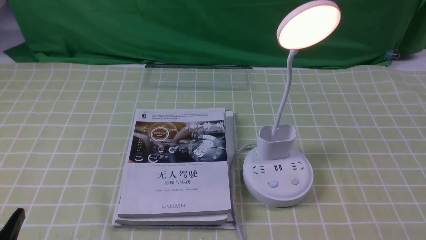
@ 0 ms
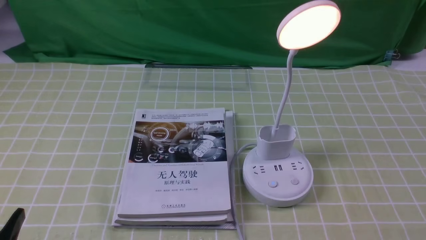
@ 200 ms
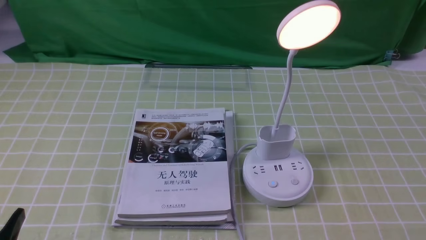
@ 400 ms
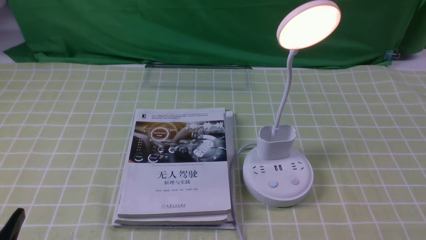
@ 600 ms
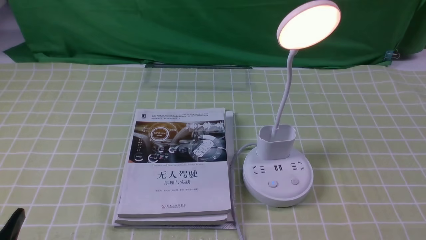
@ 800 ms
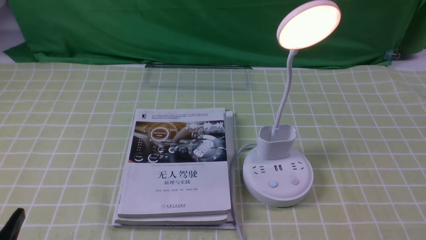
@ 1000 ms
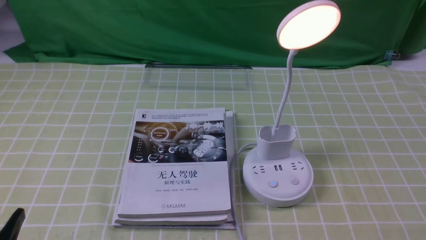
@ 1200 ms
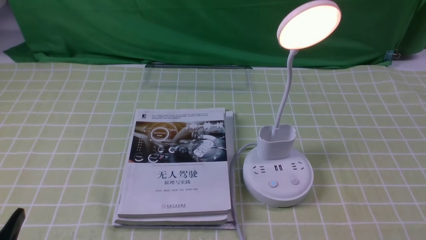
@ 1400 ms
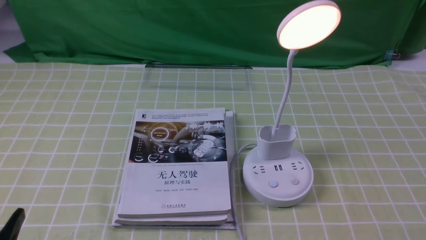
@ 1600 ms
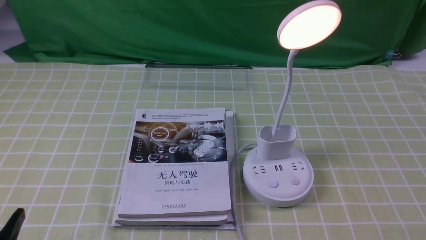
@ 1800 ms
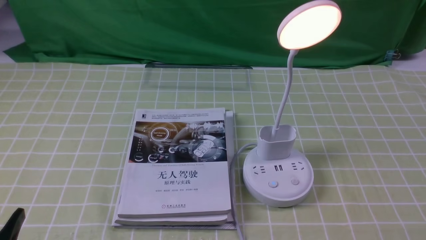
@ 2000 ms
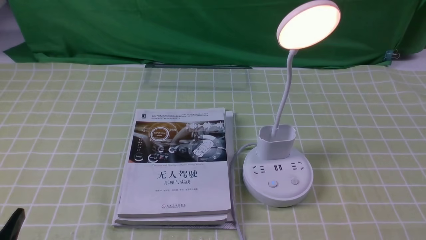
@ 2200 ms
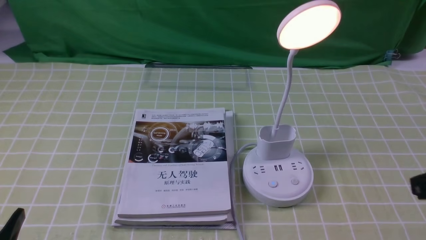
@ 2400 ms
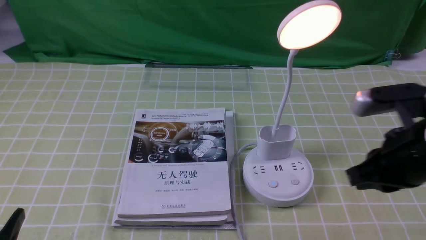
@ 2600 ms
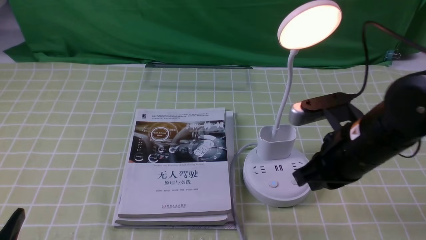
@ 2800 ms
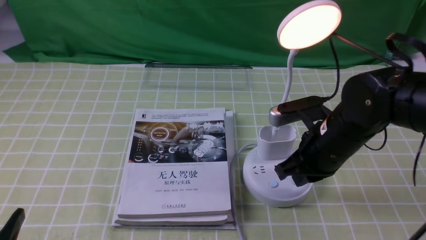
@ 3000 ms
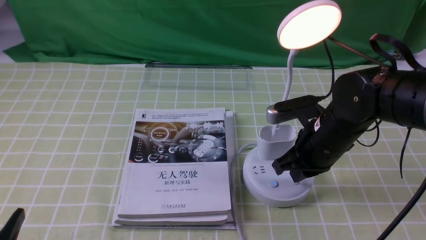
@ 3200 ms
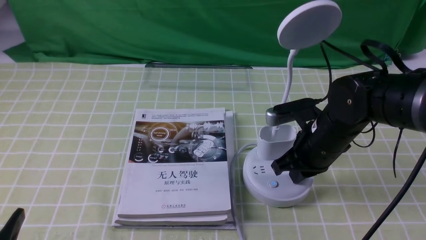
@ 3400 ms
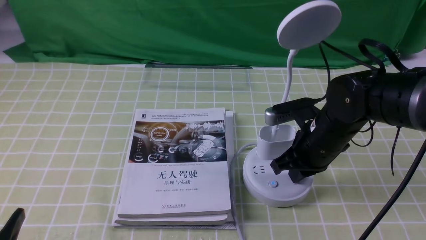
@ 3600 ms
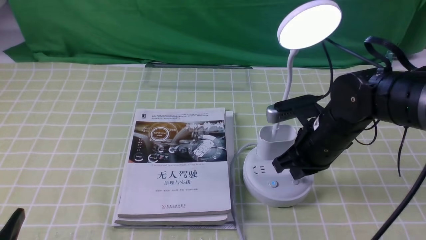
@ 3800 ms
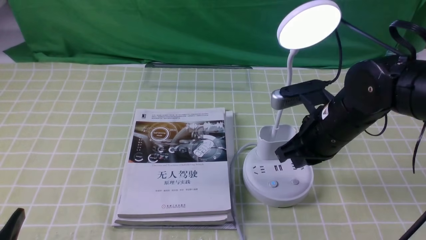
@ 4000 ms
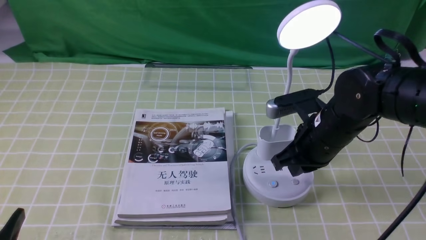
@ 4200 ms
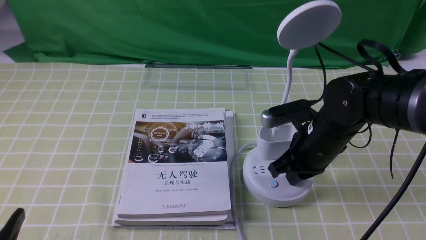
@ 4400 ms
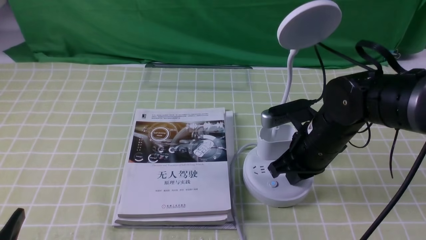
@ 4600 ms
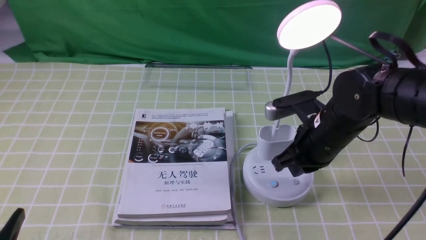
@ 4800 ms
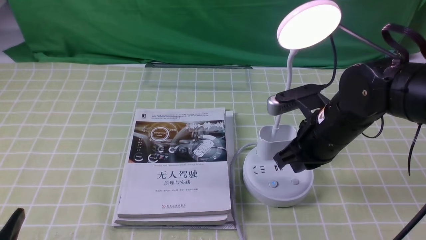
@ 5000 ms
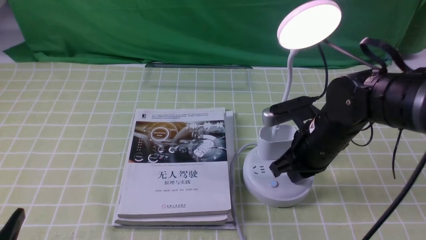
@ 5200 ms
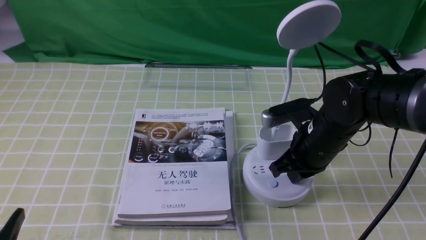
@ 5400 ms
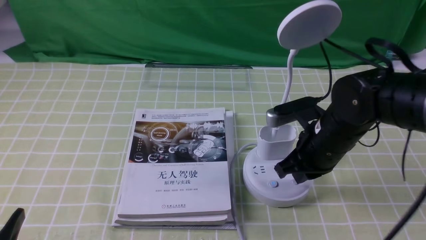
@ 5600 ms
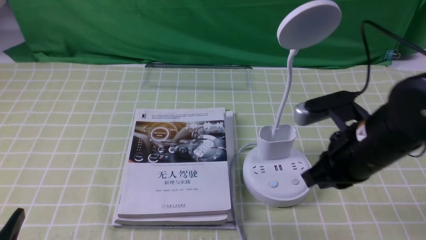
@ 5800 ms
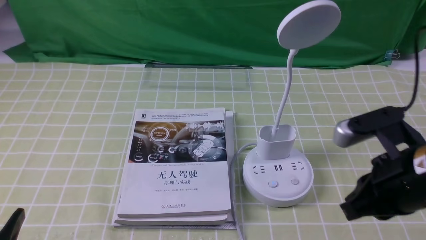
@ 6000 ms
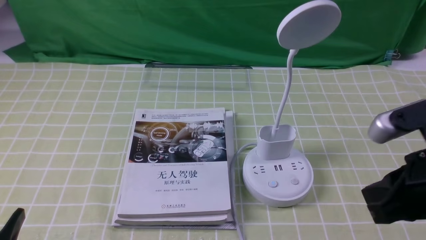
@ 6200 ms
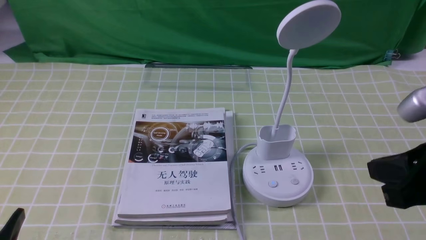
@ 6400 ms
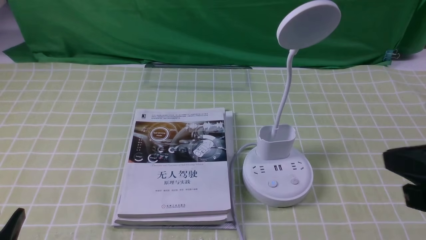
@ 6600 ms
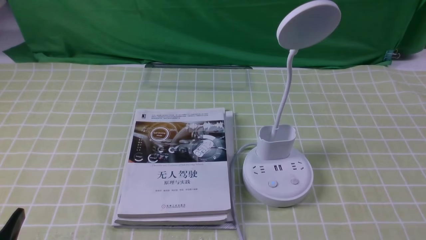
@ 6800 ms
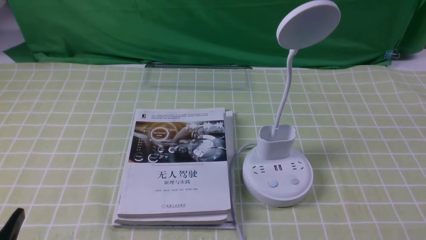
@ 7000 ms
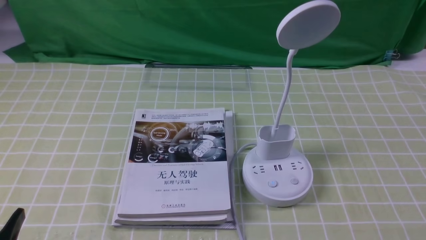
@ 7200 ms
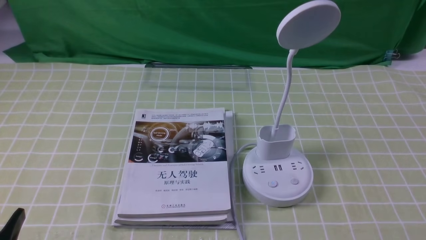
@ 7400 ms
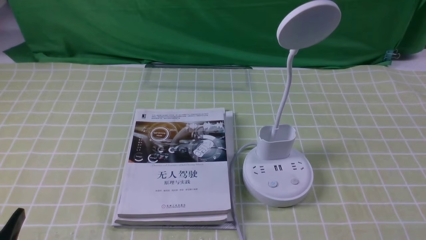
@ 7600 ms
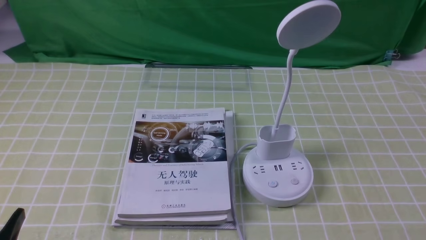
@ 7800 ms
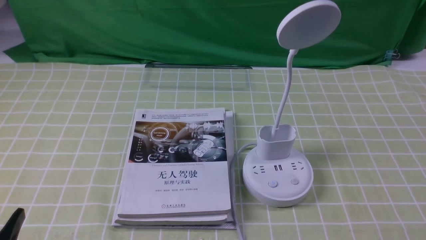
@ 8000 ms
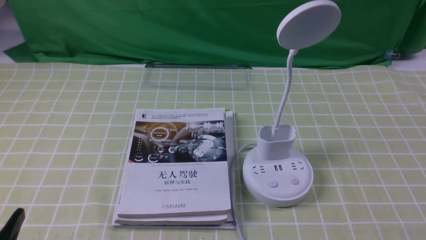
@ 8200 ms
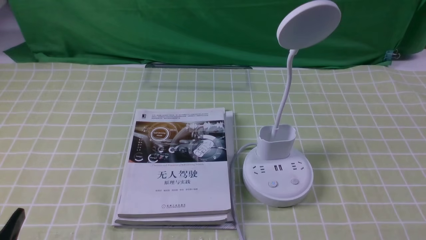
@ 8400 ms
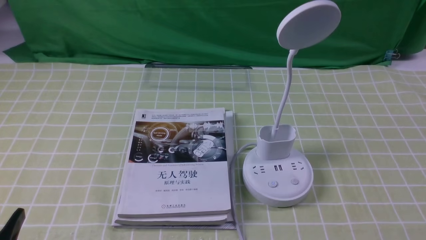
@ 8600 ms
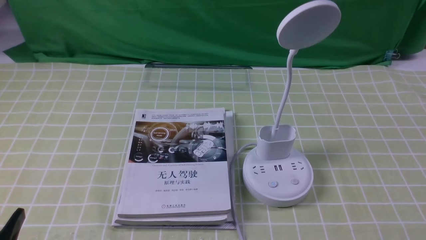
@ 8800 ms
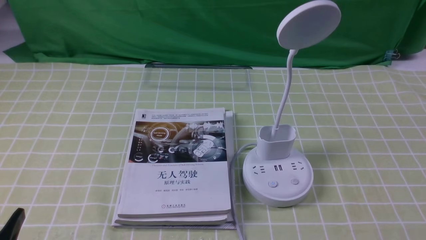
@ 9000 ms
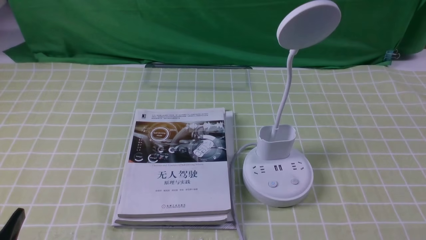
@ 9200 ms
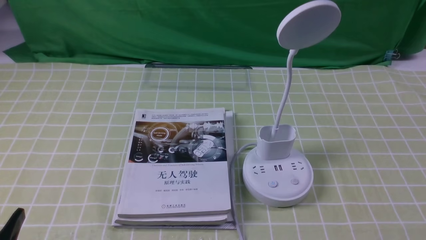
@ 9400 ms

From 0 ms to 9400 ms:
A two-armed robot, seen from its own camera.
Task of the whole recording: turn off the desk lamp on the green coffee tablecloth by hand.
Step, from 0 ms to 5600 ms: use the right arm to press the button switch on the lamp holder.
From 1600 ms to 3200 ms: The right gripper moves forward and to the left, approximately 30 cm, and closes up.
From 3200 ms to 4800 ms: The grippers move only a little.
From 4800 ms to 6200 ms: The right gripper travels backward, upward and to the right by about 20 cm.
From 6200 ms to 7800 ms: The right gripper goes about 20 cm backward, downward and to the right.
